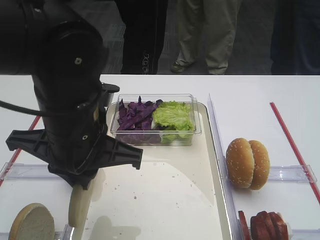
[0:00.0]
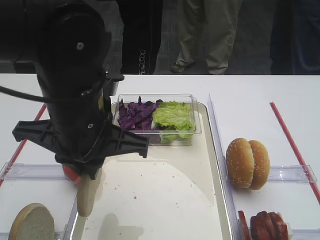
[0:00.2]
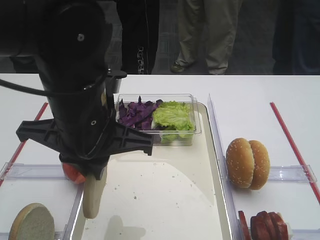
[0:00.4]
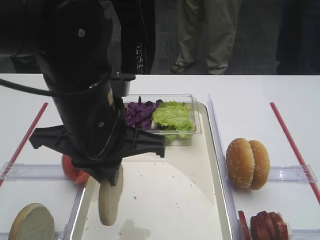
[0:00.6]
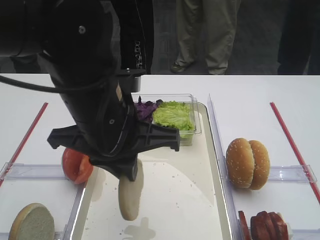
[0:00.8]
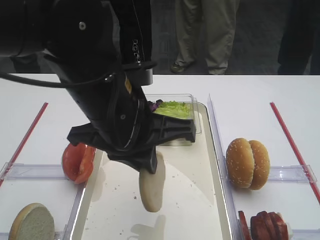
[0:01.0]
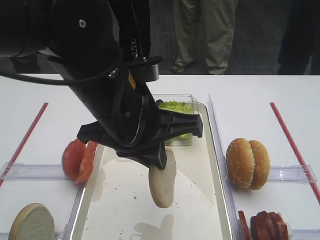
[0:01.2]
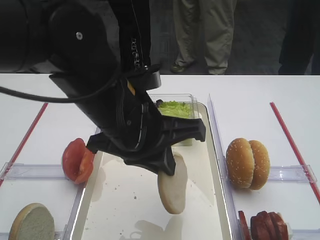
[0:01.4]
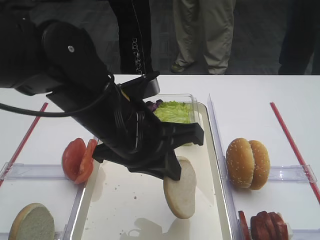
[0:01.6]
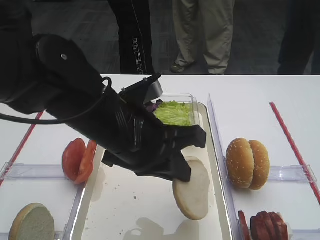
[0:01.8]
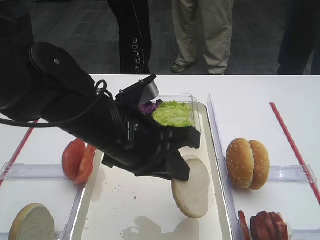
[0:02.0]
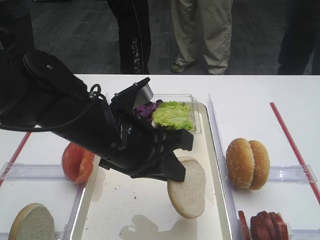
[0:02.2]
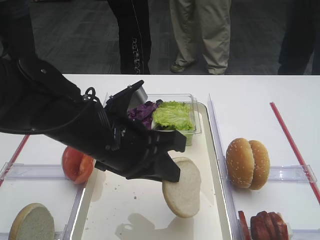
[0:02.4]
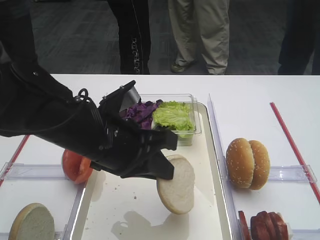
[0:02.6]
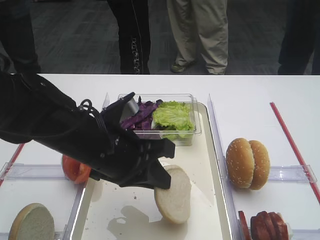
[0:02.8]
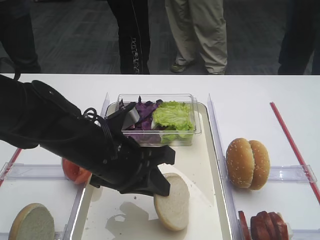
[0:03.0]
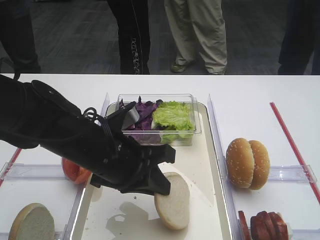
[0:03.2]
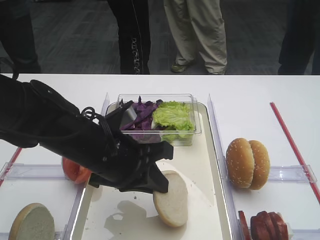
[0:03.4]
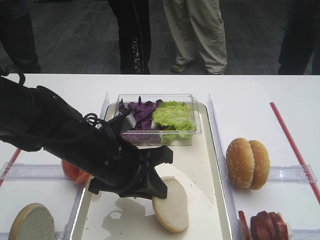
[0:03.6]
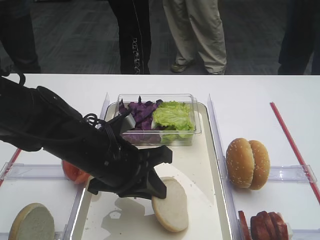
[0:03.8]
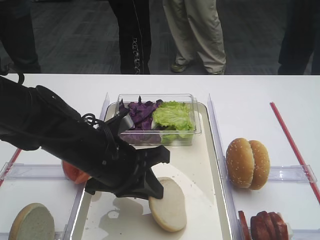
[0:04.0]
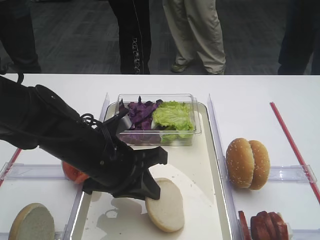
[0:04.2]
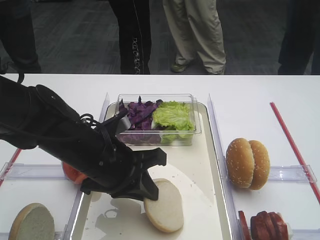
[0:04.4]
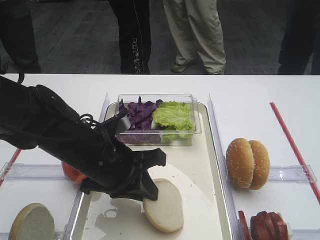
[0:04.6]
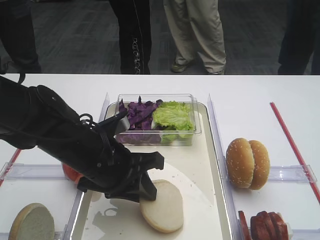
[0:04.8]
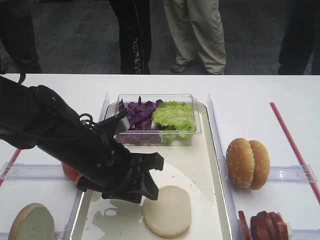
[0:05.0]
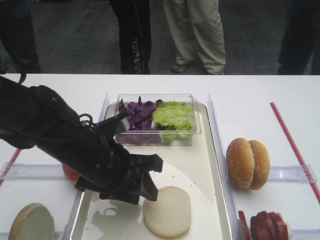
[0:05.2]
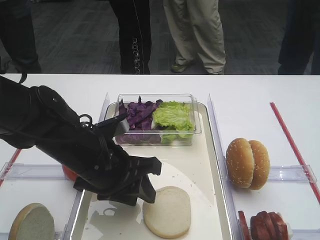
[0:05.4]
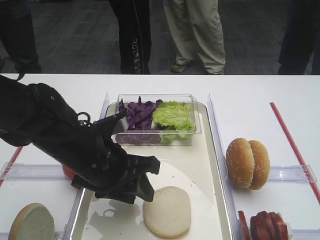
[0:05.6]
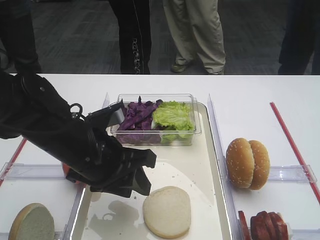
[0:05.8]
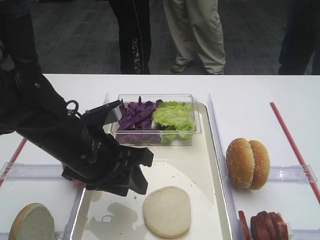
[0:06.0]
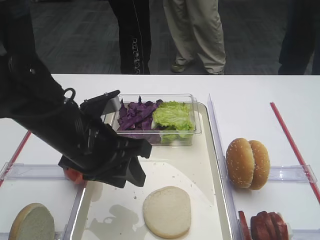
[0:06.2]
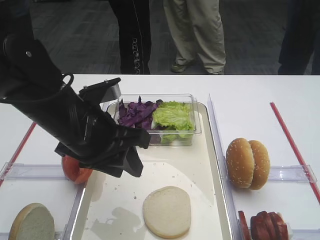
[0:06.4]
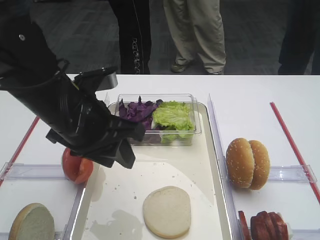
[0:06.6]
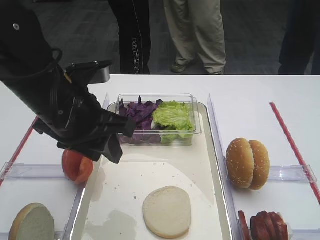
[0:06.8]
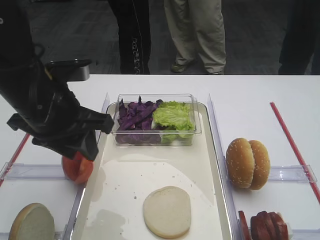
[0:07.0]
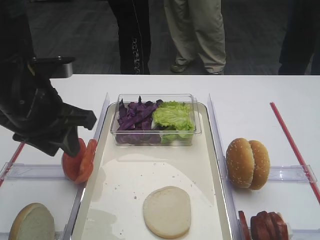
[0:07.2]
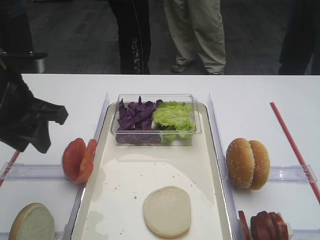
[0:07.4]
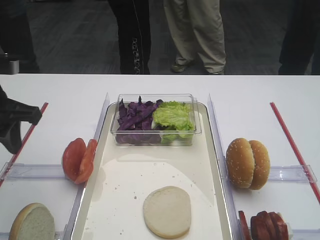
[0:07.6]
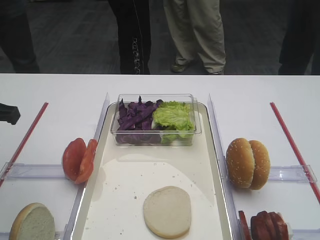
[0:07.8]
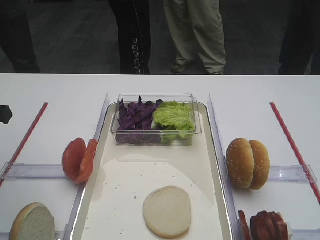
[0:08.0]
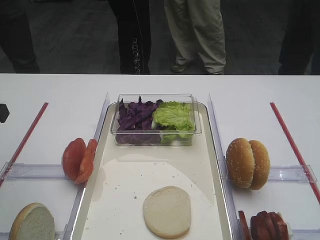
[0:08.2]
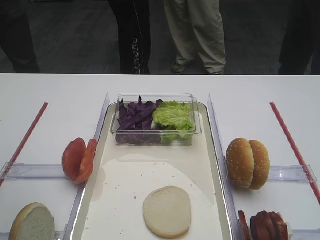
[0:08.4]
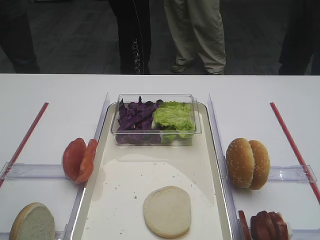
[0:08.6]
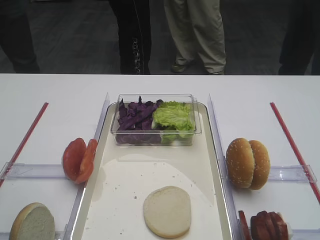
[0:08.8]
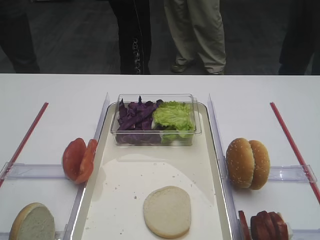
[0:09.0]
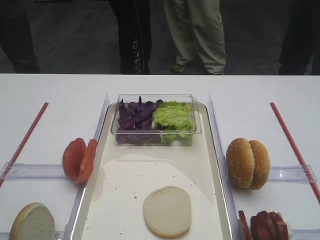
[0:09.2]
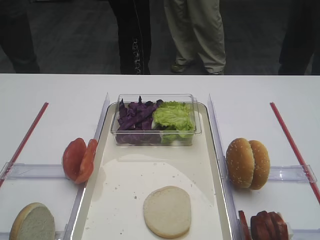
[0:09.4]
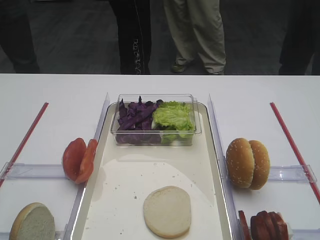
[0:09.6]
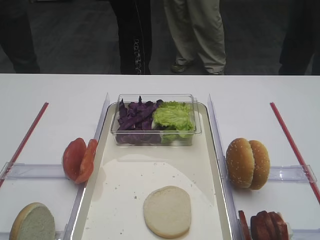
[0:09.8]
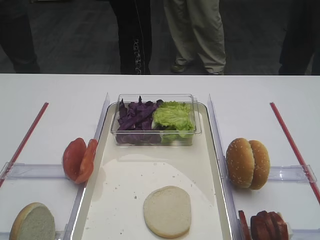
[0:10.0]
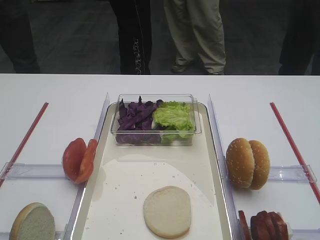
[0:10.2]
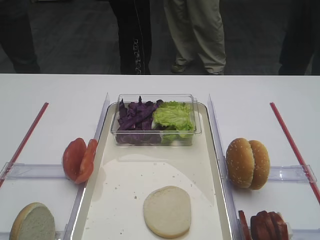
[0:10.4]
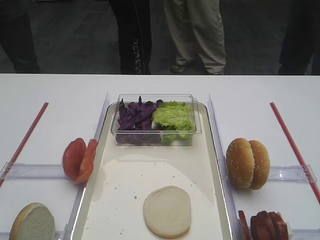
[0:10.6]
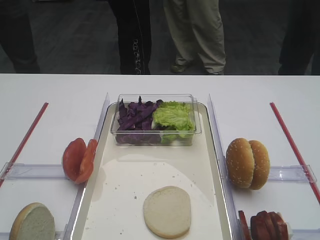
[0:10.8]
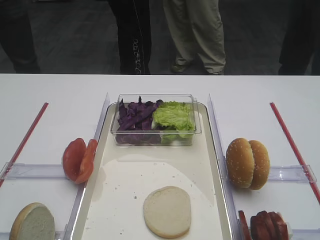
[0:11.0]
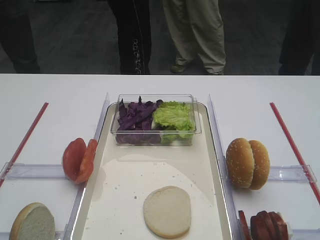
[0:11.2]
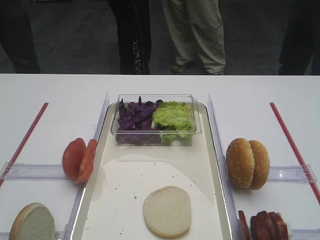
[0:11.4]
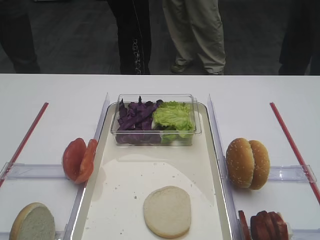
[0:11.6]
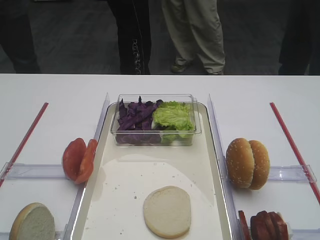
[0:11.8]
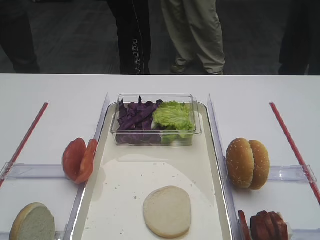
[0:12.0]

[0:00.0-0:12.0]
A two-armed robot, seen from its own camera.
Step, 0:00.0 to 0:05.4: Place the bread slice on the tray with the left gripper.
0:01.6 to 0:03.0: The left gripper heads downward, covering approximately 5 cm.
0:03.0 to 0:04.4: The grippers move only a little.
0:04.4 to 0:06.0: The left gripper opens up.
0:06.0 to 0:07.6: The left gripper moves to the left and upward, some 15 cm.
0:07.6 to 0:09.0: The left gripper is displaced backward by about 10 cm.

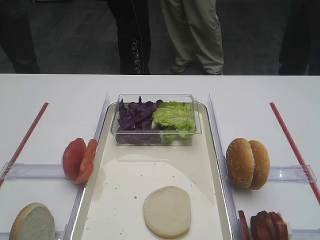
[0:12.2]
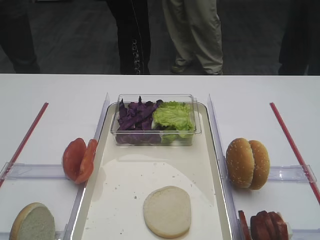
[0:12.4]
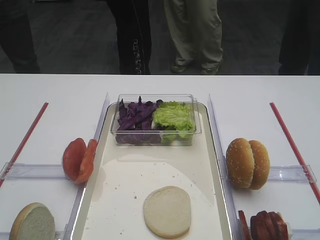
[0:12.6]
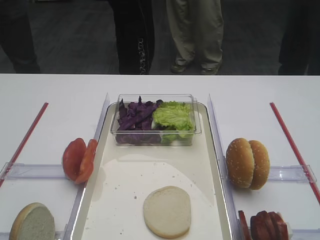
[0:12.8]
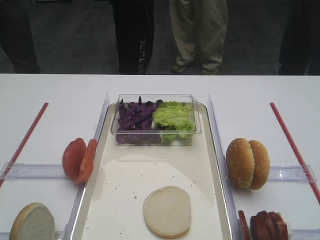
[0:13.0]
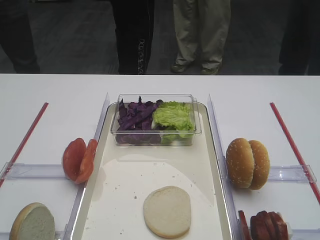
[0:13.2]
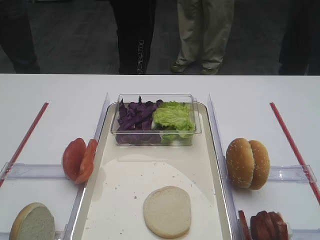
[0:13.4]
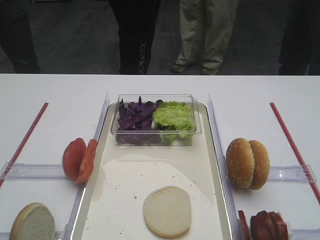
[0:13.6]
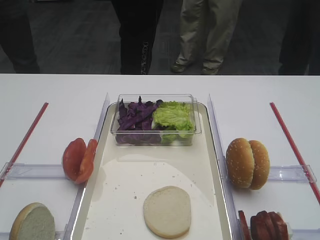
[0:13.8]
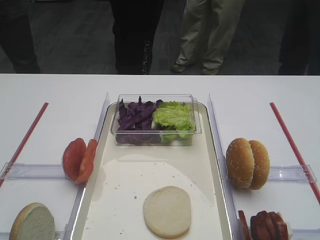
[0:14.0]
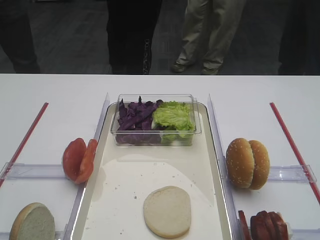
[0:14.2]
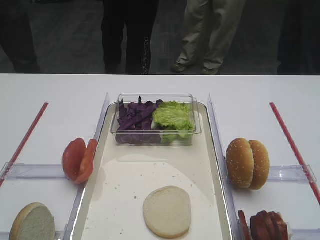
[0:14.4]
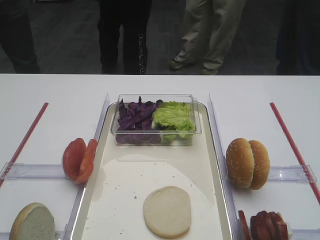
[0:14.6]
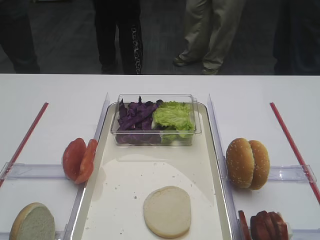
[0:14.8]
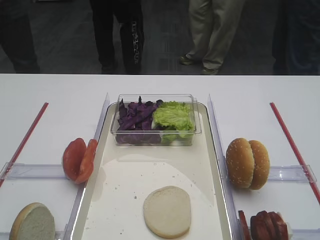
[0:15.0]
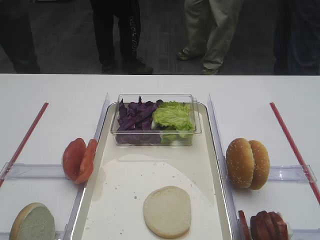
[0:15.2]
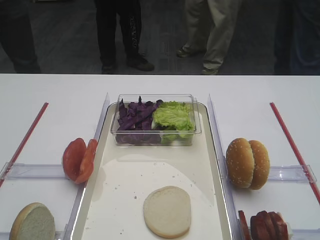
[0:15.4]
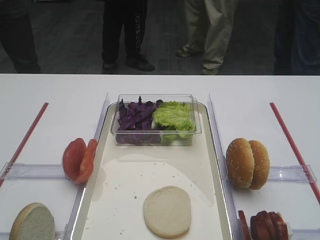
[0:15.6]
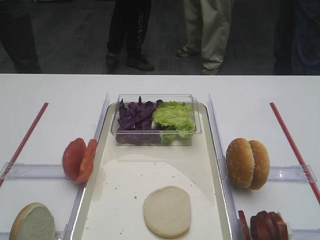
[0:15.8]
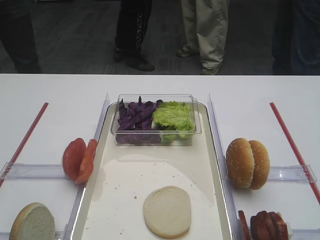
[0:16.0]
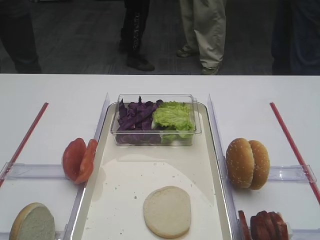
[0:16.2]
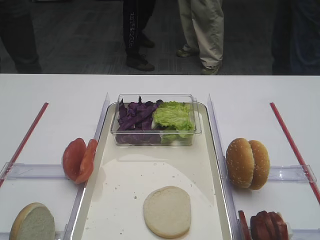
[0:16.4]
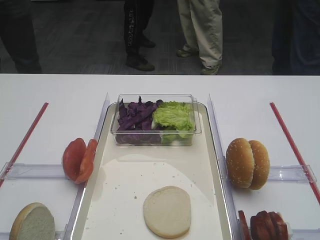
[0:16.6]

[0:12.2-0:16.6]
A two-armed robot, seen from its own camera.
0:12.2 to 0:16.6: Neither gripper changes place.

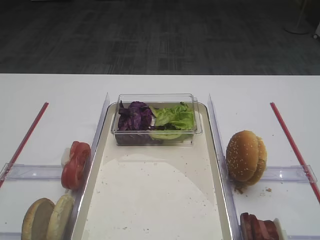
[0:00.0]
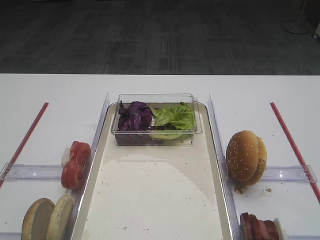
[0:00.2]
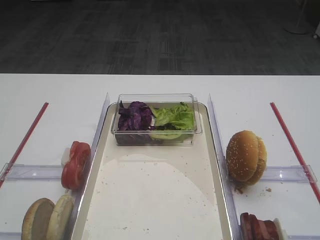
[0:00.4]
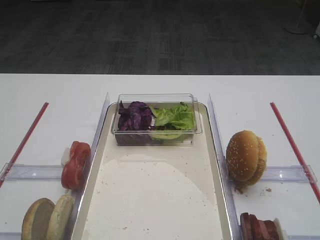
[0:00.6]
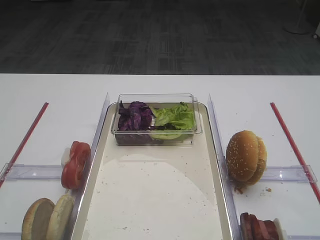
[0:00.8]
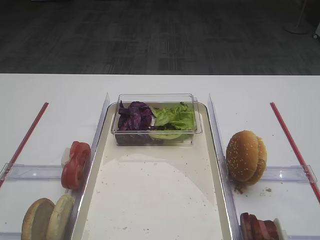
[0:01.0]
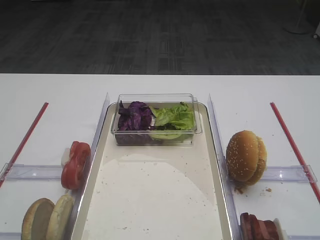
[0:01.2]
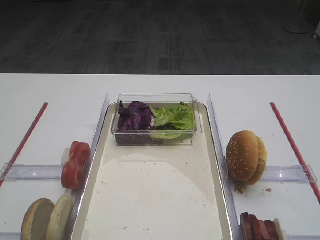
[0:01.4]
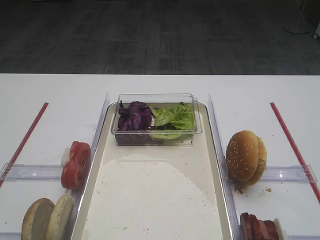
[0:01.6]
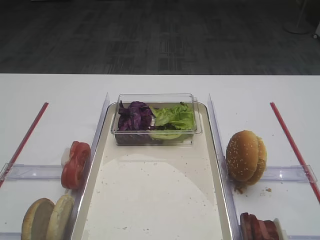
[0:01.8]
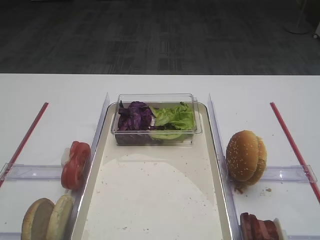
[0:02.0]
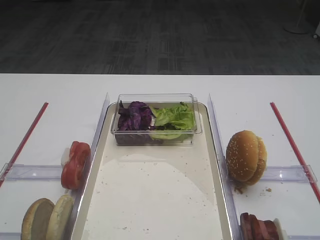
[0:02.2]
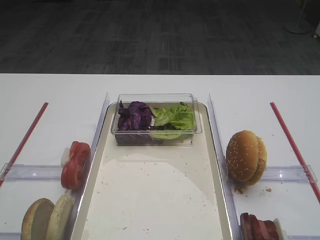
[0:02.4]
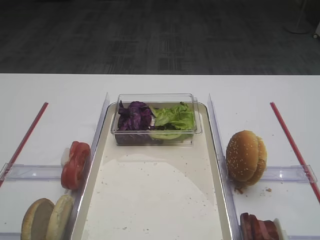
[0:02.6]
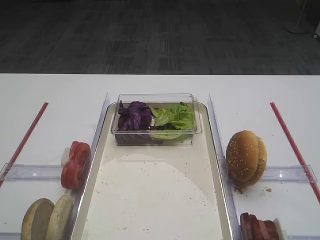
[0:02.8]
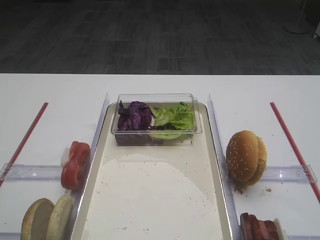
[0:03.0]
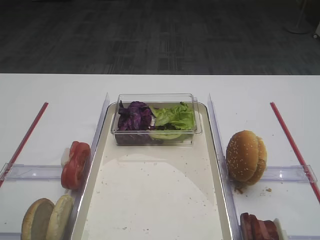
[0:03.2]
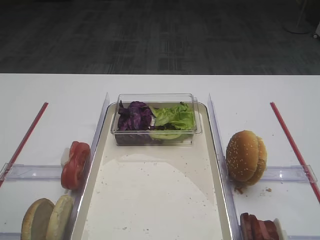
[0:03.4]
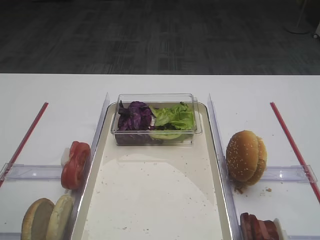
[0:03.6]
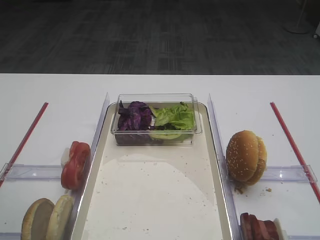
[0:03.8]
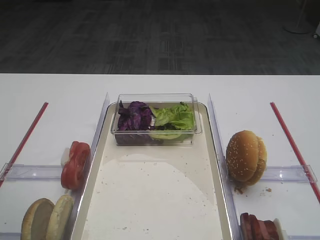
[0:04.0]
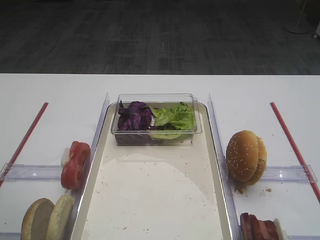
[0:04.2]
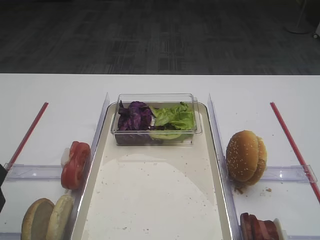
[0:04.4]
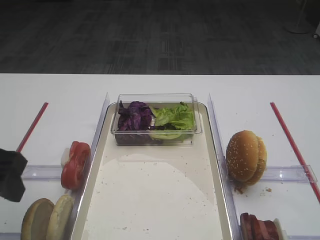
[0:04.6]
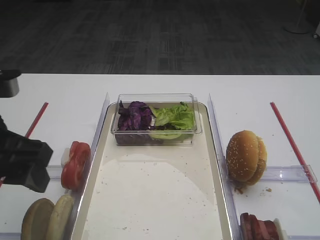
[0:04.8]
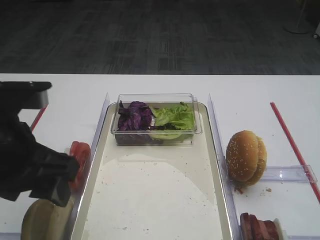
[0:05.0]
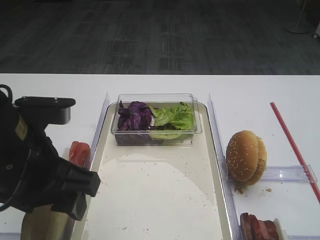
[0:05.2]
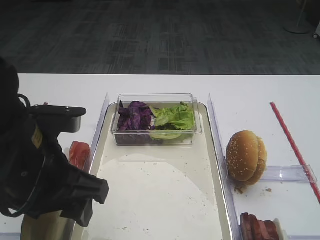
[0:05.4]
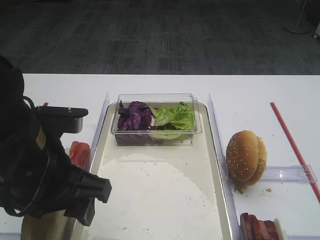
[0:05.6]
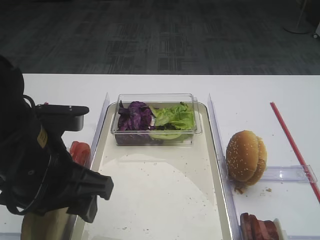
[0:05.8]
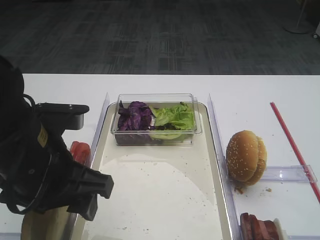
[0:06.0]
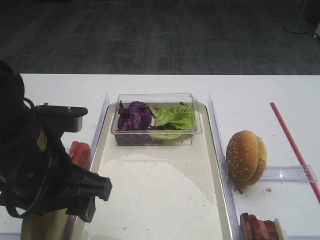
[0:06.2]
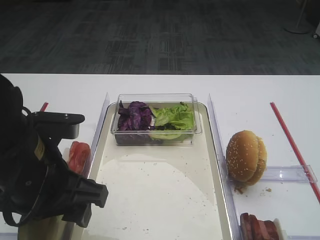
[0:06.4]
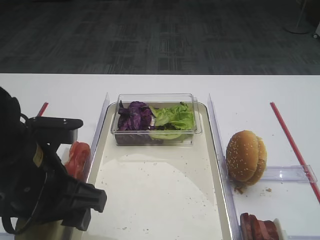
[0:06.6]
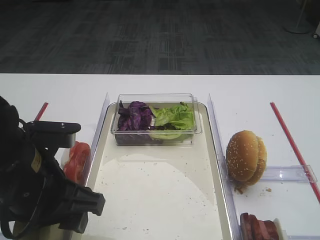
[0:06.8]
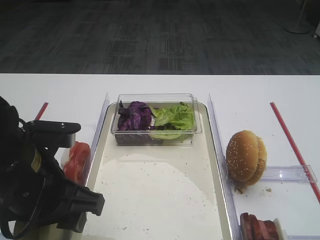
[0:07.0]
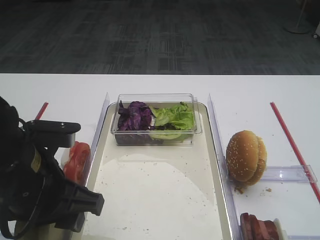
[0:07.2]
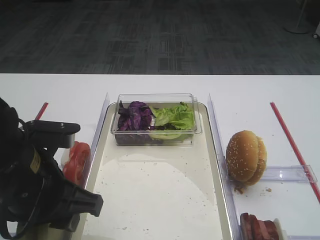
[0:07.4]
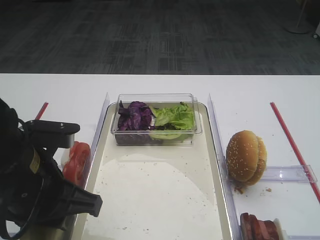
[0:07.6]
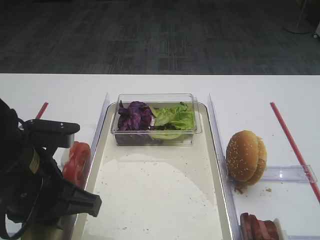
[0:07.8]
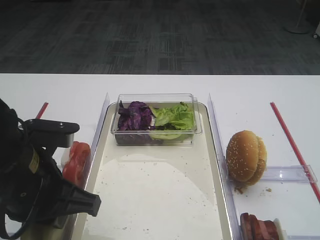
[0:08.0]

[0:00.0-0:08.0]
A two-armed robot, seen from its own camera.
0:03.2 to 0:04.8: The left gripper heads to the right, covering some 10 cm.
0:04.8 to 0:06.4: The left gripper moves to the right and downward, about 10 cm.
0:06.4 to 0:08.0: The left gripper closes its fingers.
